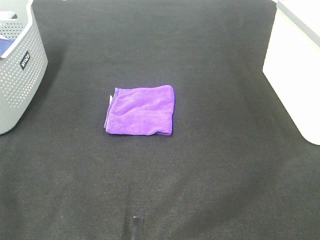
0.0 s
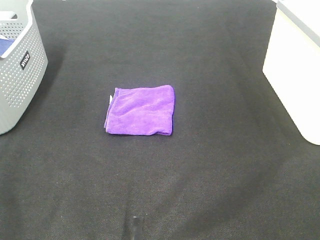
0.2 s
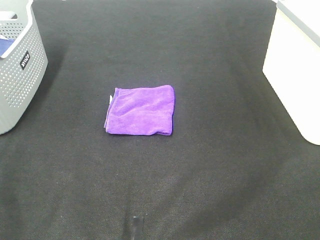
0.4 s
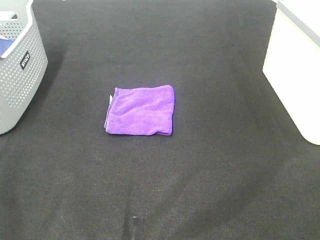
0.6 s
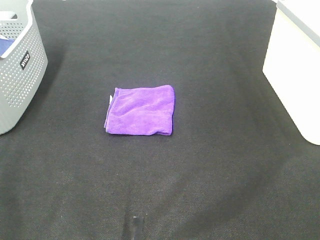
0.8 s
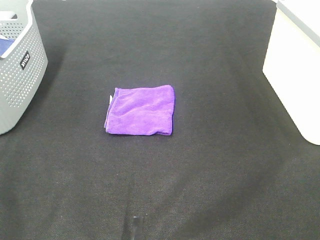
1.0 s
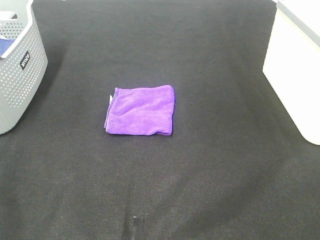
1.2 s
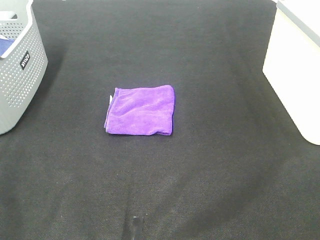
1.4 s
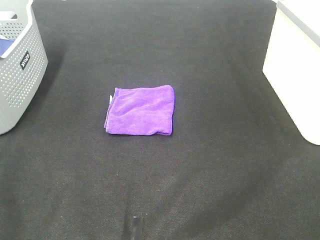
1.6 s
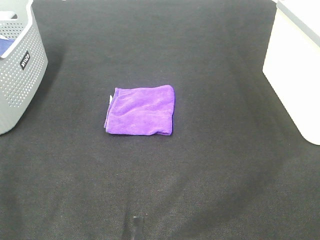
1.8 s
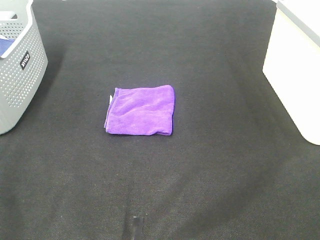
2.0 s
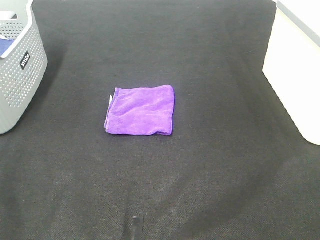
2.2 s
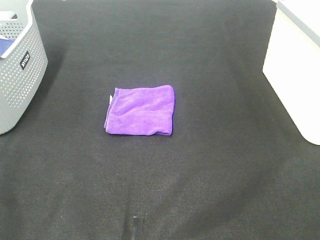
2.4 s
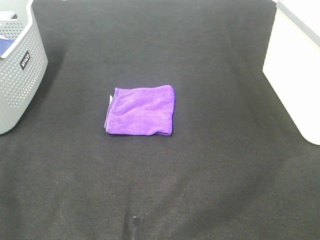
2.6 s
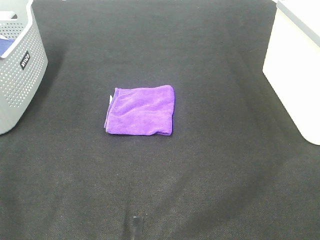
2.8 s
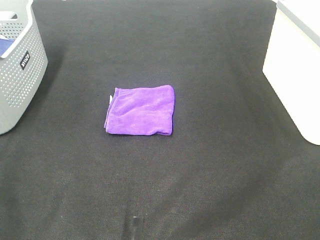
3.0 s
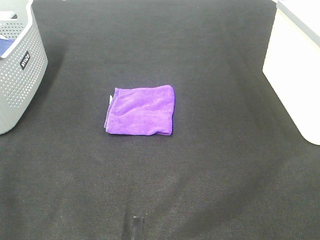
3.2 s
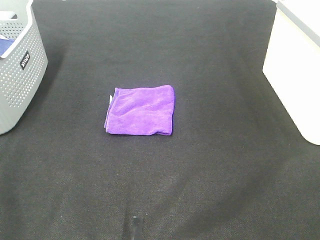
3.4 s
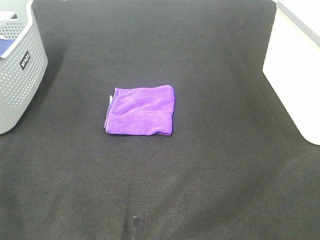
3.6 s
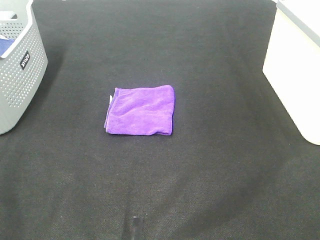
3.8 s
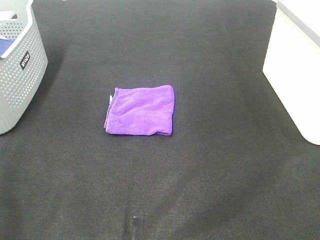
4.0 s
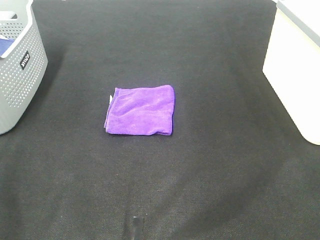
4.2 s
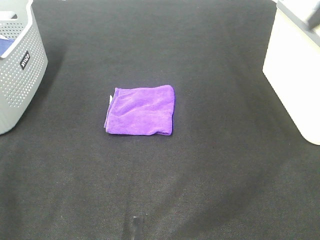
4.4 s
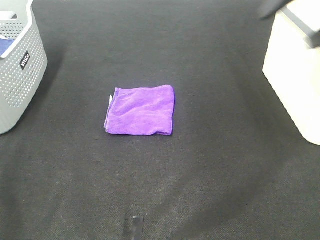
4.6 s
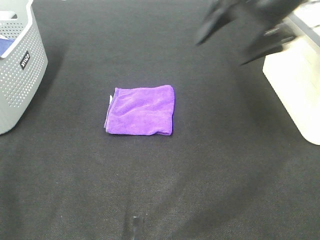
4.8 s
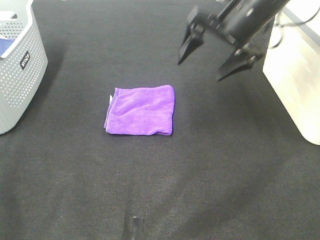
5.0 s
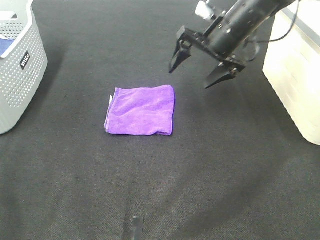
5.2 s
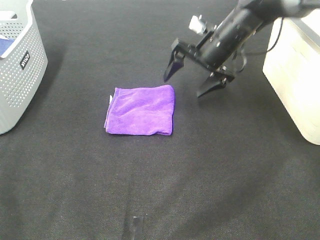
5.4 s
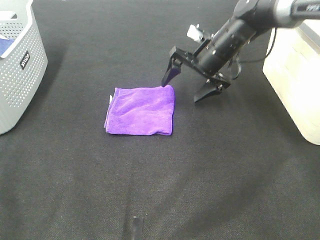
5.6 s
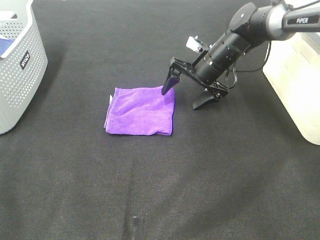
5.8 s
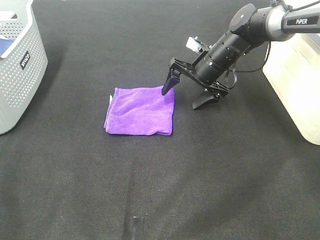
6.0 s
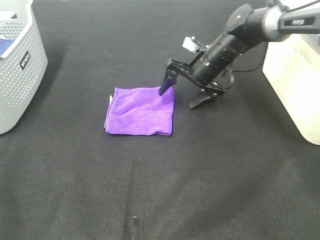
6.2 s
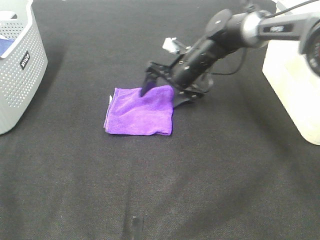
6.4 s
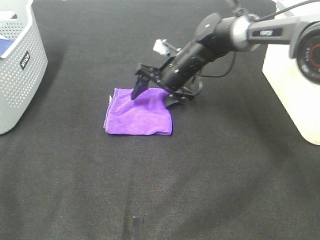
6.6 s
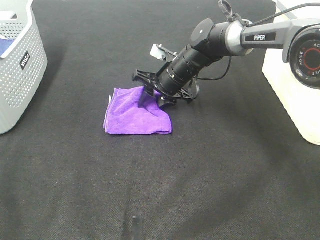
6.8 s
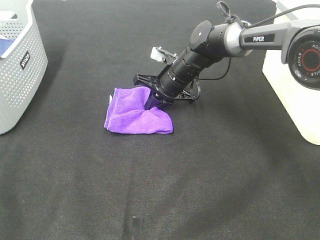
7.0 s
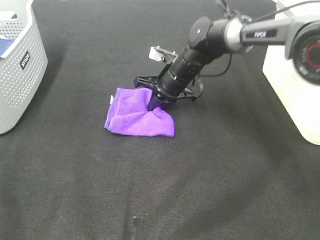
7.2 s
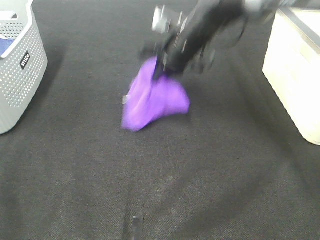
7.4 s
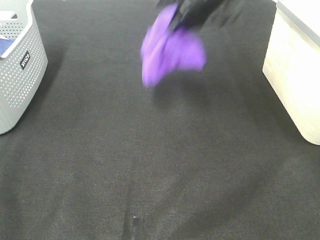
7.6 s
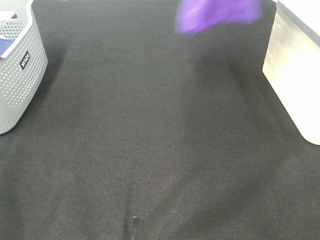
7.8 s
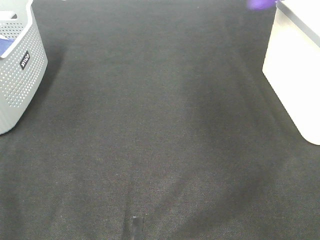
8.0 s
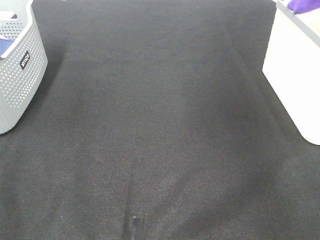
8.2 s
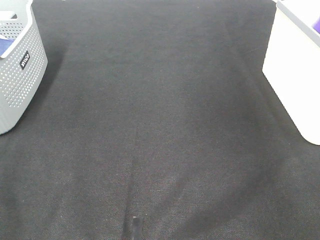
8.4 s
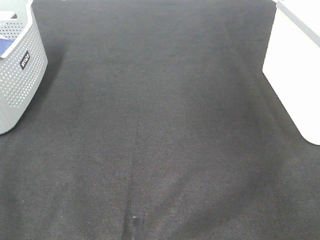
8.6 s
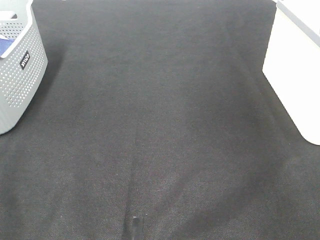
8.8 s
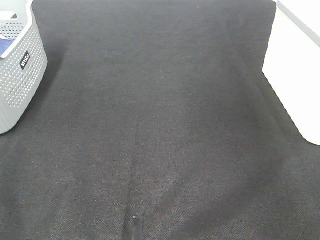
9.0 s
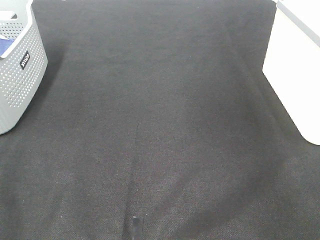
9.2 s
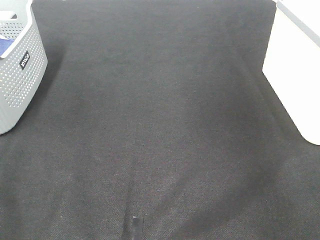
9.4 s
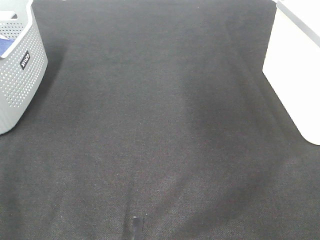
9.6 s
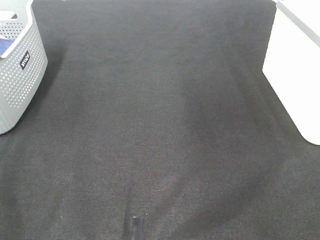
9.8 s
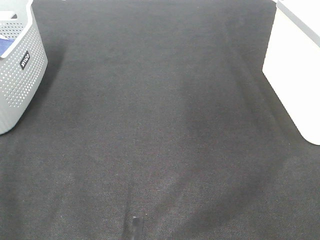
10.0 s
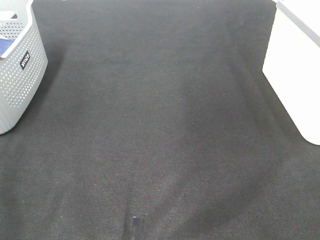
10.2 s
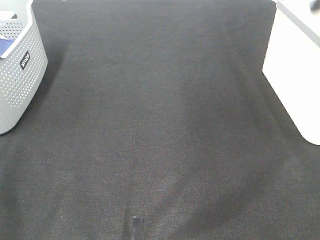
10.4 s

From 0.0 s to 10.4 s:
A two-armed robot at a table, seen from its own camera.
Step, from 0.0 s to 7.0 s: Right hand: grab the folded purple towel.
Step, from 7.2 s to 9.0 s: Right hand: place the purple towel in right basket.
From 0.0 s to 3.0 s: The two grippers keep their place.
From 4.4 s to 6.0 s: The right gripper travels downward, forward and to the left by about 35 cm.
From 6.0 s to 7.4 s: The right gripper shifts roughly 10 cm upward and to the left, and closes its fingers.
From 7.4 s to 9.0 s: The right gripper goes some 35 cm to the right, and opens up.

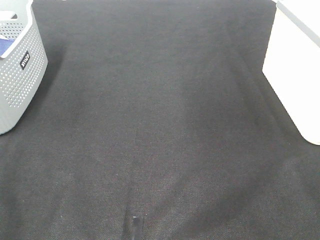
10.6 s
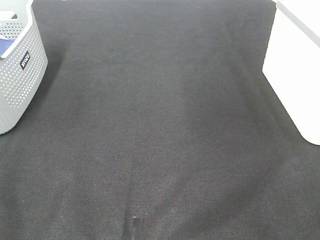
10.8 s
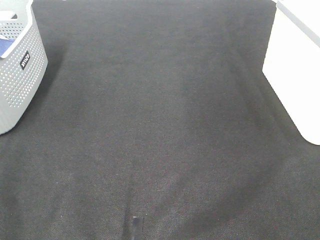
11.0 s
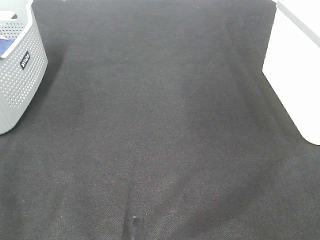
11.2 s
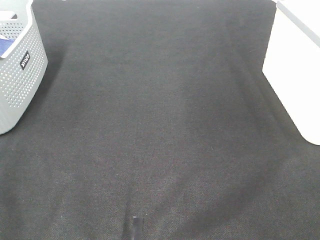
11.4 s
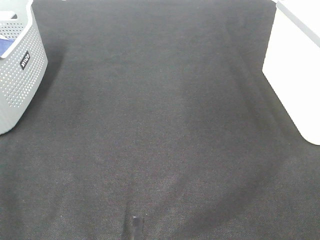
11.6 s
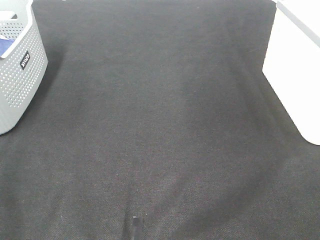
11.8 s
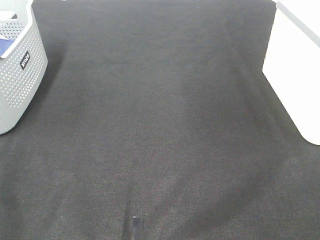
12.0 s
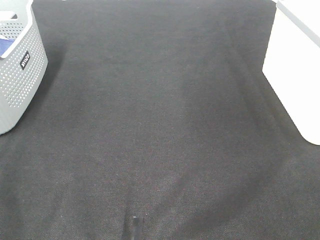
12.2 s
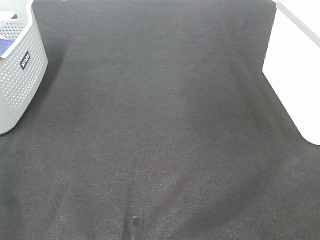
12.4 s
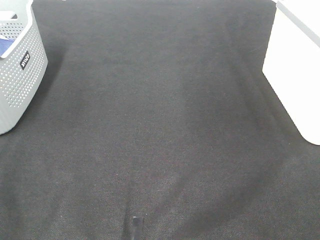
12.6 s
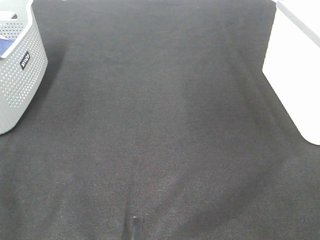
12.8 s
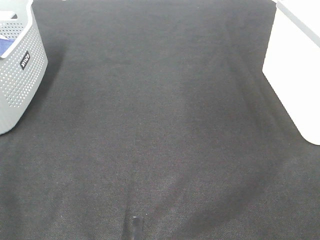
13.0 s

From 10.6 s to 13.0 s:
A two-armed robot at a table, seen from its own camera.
From 11.8 s to 13.0 s: The two grippers keep their place.

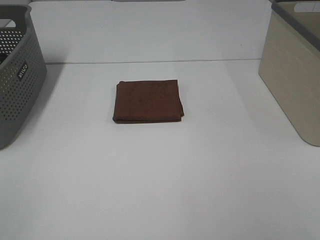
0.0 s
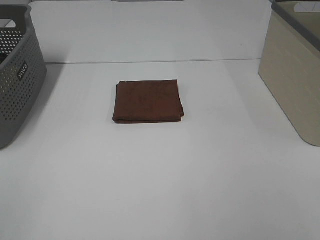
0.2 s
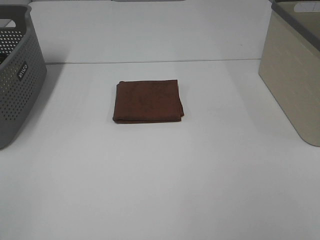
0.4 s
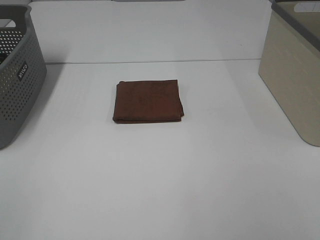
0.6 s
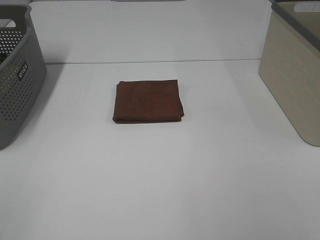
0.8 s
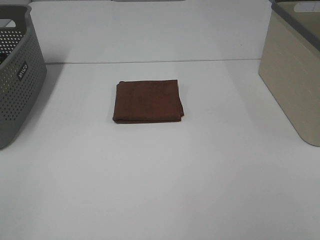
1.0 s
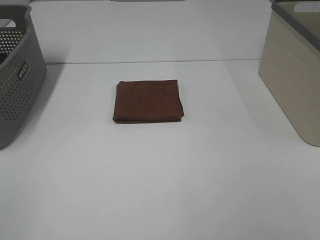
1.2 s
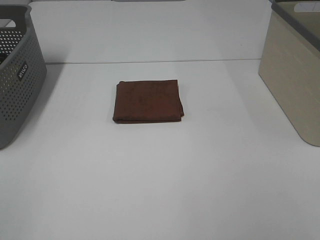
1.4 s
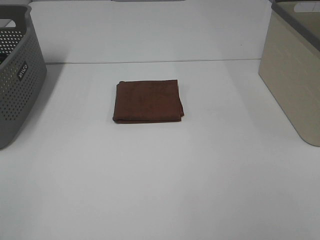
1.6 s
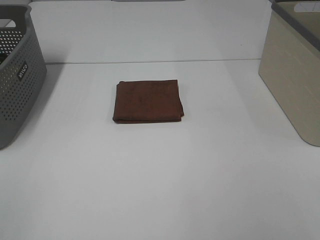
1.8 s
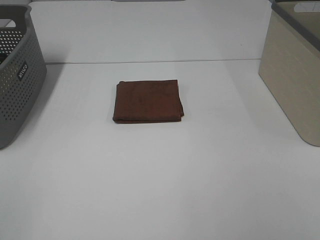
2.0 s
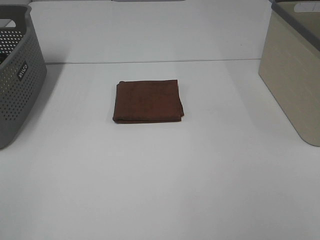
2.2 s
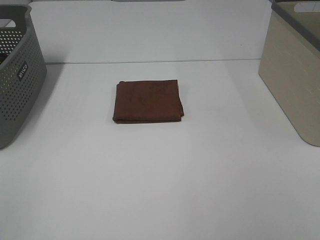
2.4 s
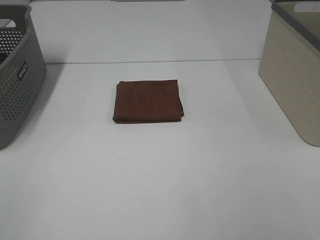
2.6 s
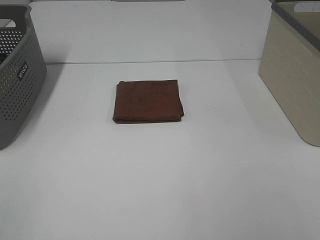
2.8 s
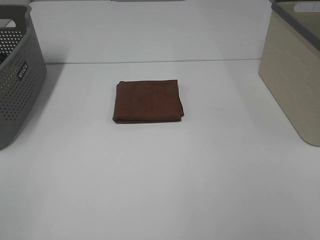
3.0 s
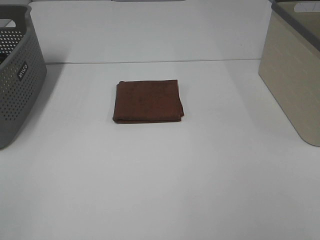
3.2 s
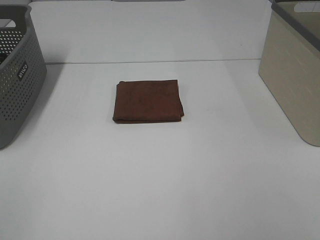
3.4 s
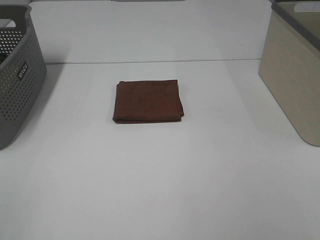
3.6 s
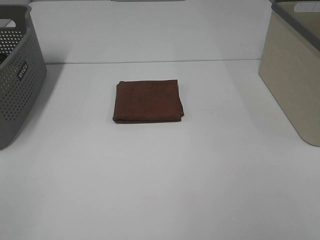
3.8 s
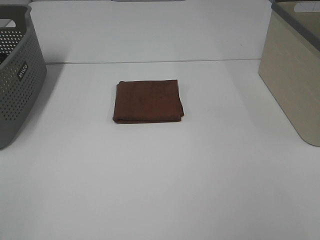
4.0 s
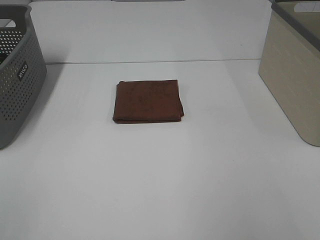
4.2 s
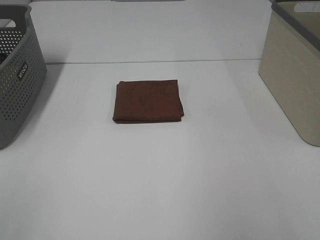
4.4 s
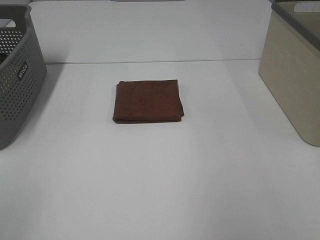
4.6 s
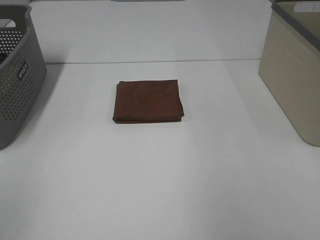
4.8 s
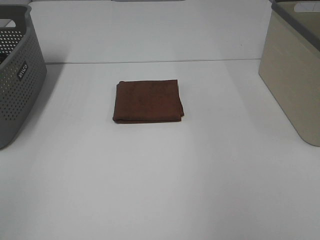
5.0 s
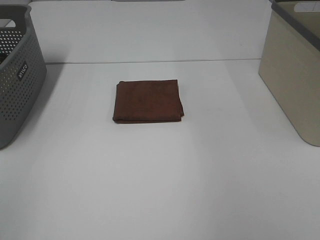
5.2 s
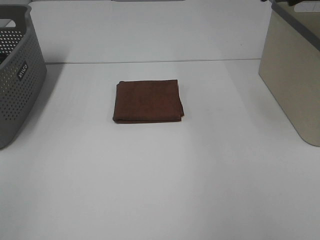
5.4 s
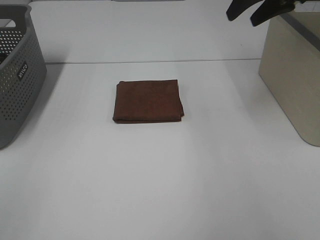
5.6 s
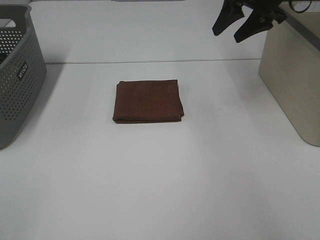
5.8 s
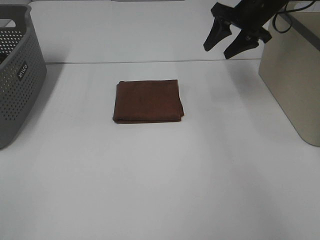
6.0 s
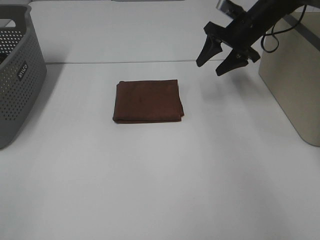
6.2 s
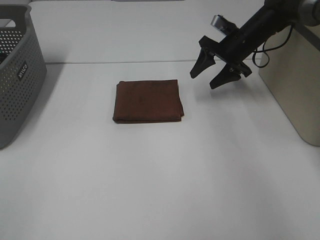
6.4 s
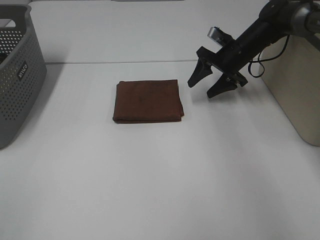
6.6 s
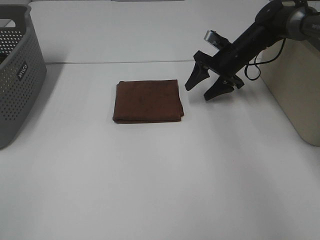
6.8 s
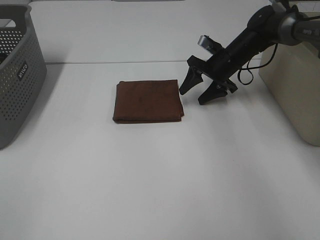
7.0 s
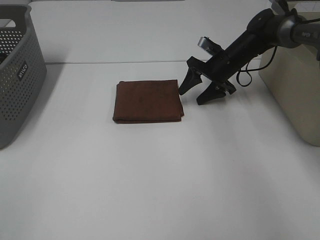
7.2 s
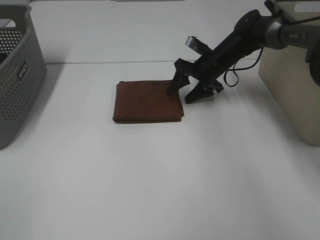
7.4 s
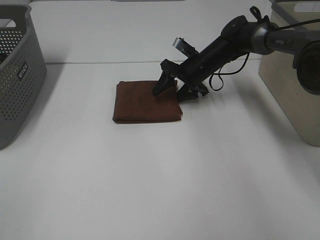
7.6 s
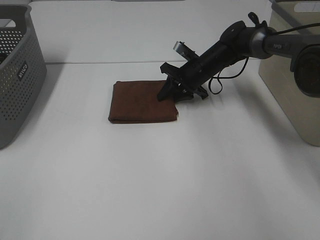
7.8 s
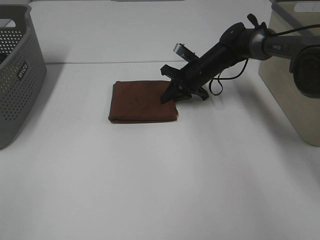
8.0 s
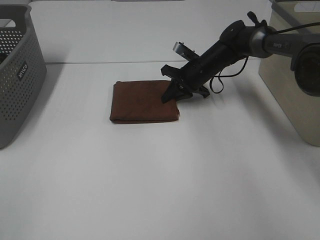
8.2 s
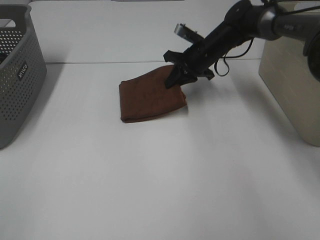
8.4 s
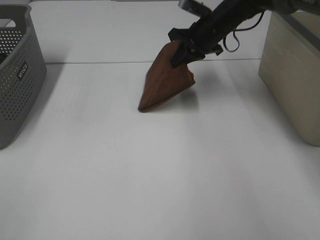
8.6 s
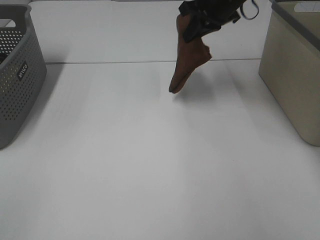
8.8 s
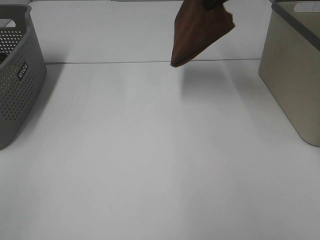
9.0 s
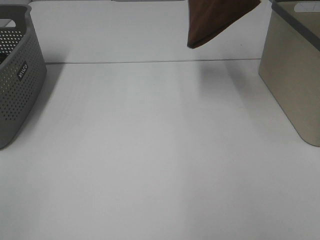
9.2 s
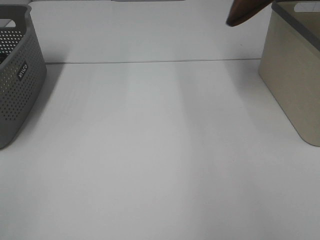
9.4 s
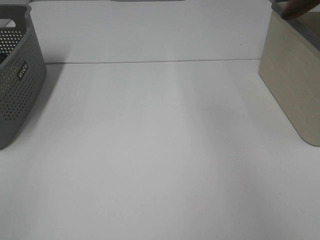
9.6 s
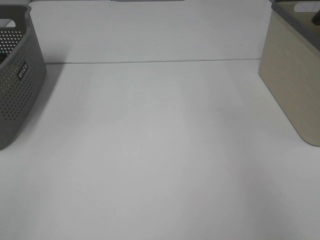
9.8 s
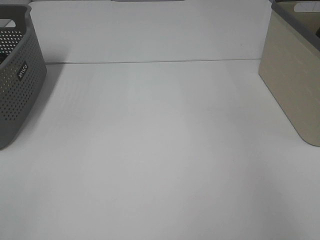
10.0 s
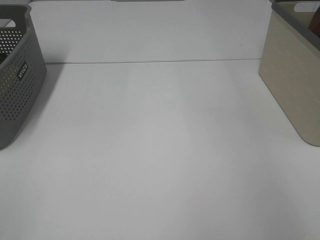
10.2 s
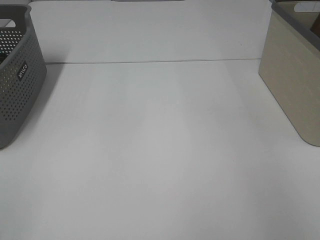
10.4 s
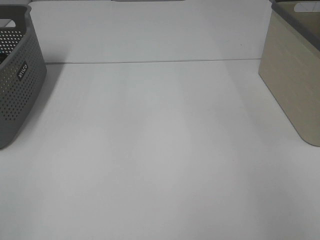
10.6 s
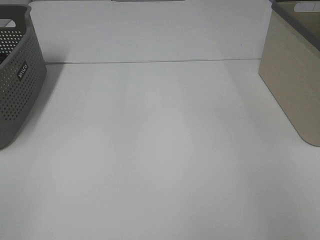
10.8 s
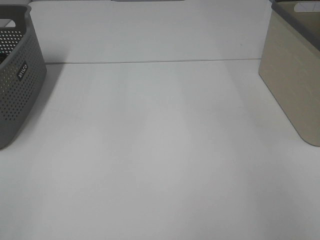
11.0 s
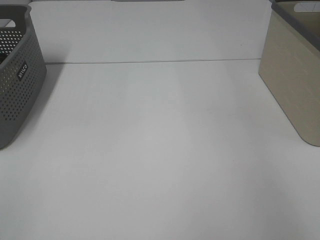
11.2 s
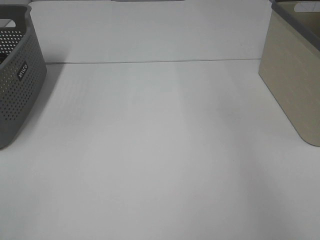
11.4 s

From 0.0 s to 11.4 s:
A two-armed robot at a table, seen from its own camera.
Step, from 0.0 s to 8.2 s: Right hand: grab the folded brown towel.
Step, from 8.4 s to 10.6 s: Right hand: place the brown towel in right basket.
From 0.0 s to 2.8 s: The two grippers keep their place.
From 4.2 s to 5.6 s: The right gripper shifts approximately 35 cm forward.
From 5.6 s to 7.2 s: The right gripper moves downward, roughly 20 cm.
From 7.2 s to 8.6 s: The right gripper travels upward by about 10 cm, and closes its fingers.
From 8.6 s to 10.0 s: The right gripper moves to the right and upward, approximately 35 cm.
